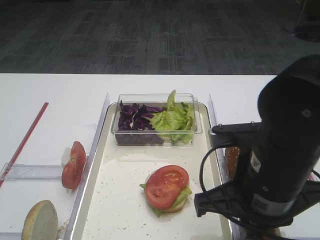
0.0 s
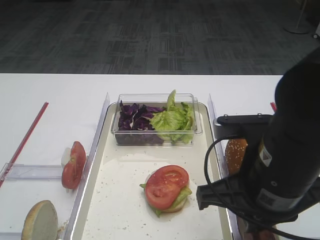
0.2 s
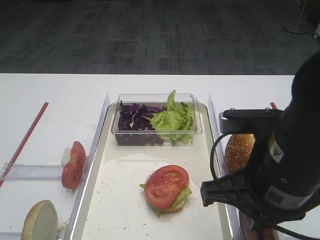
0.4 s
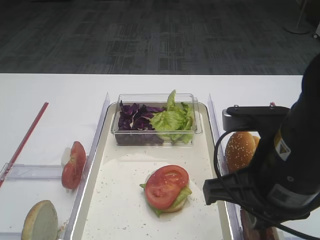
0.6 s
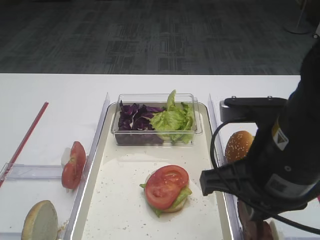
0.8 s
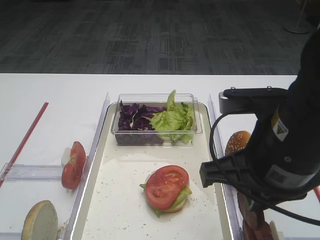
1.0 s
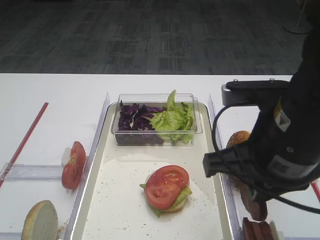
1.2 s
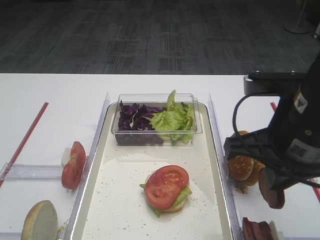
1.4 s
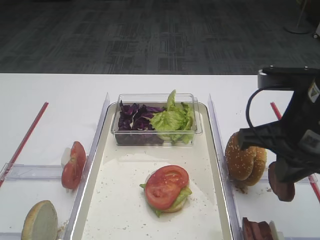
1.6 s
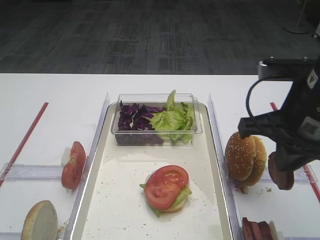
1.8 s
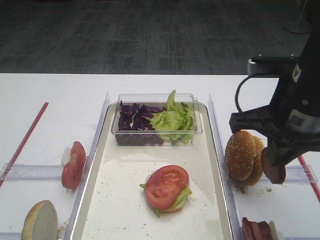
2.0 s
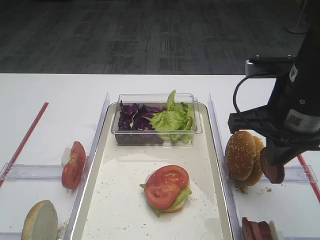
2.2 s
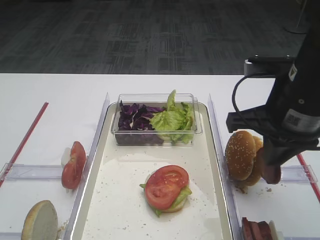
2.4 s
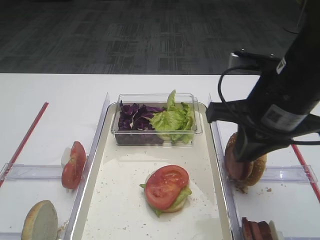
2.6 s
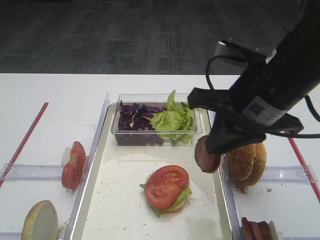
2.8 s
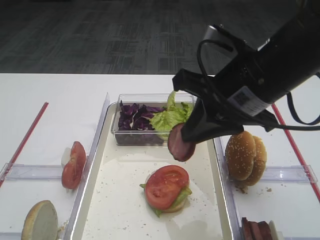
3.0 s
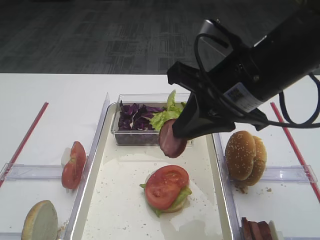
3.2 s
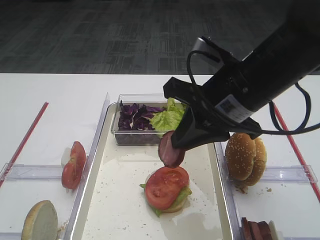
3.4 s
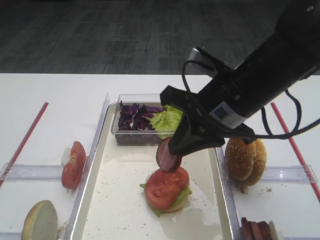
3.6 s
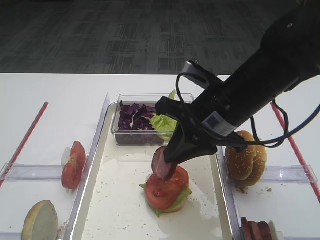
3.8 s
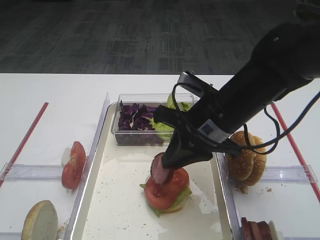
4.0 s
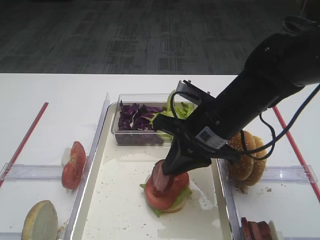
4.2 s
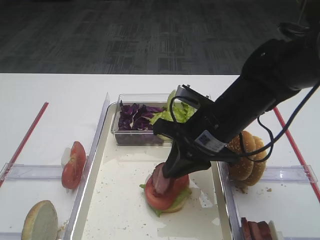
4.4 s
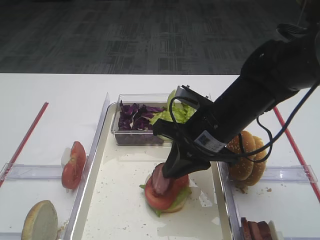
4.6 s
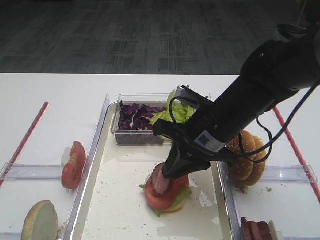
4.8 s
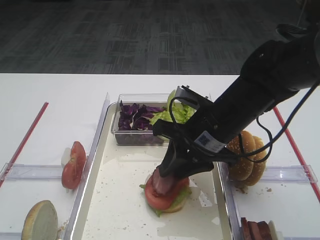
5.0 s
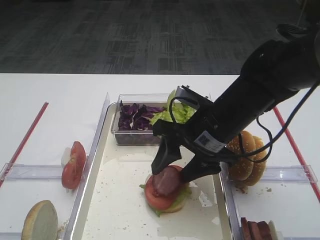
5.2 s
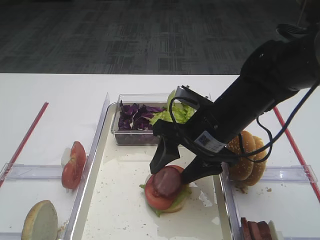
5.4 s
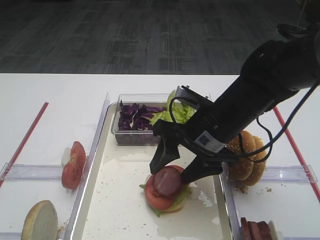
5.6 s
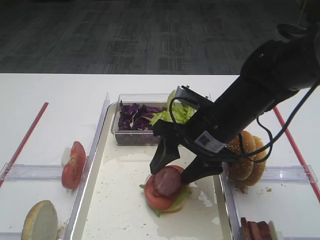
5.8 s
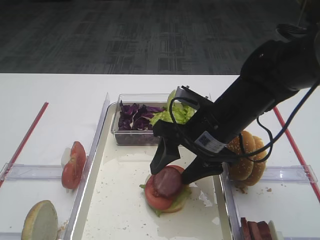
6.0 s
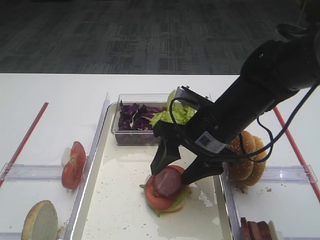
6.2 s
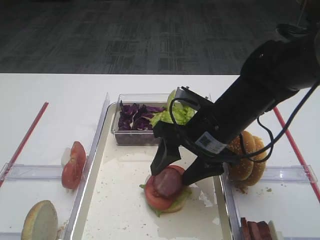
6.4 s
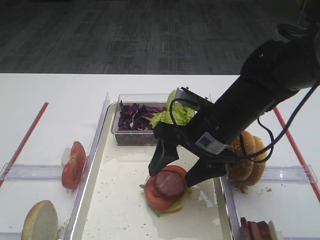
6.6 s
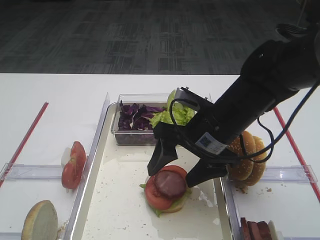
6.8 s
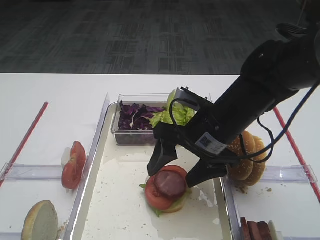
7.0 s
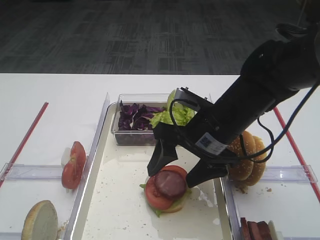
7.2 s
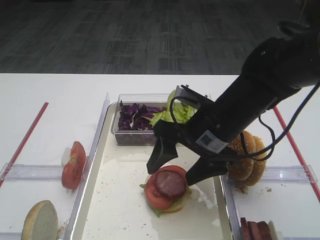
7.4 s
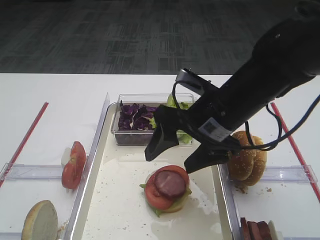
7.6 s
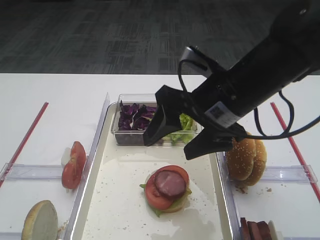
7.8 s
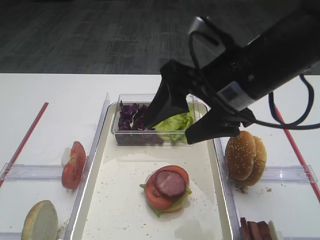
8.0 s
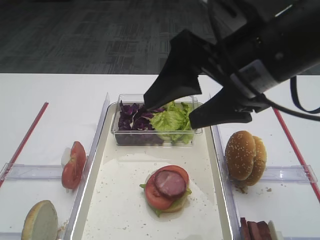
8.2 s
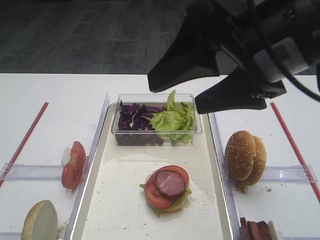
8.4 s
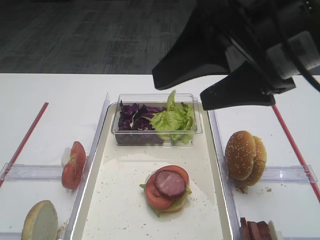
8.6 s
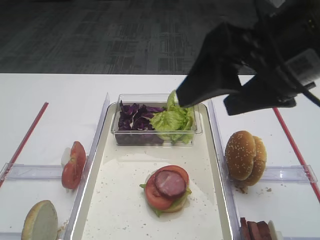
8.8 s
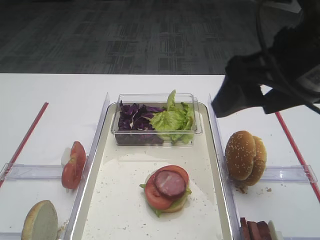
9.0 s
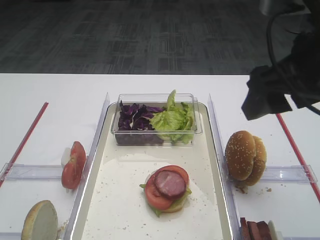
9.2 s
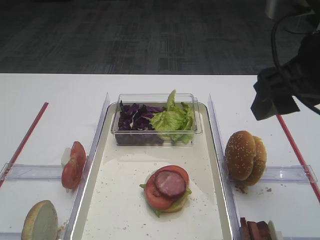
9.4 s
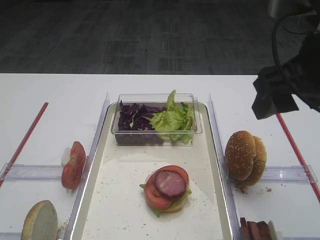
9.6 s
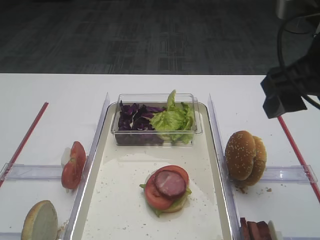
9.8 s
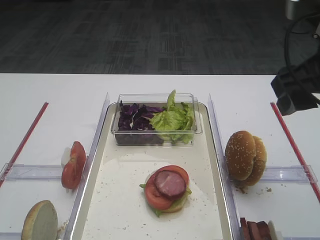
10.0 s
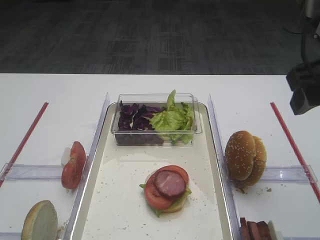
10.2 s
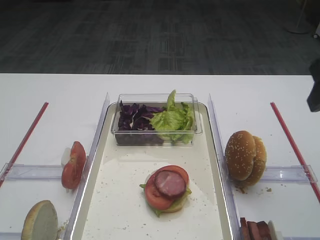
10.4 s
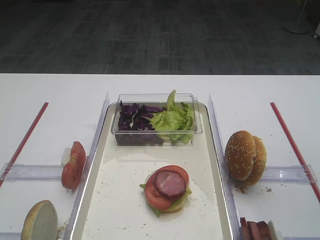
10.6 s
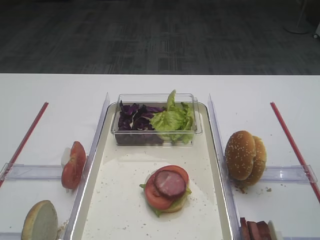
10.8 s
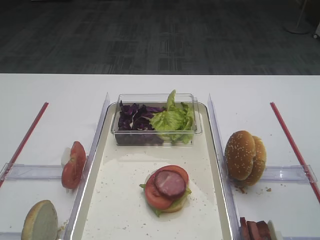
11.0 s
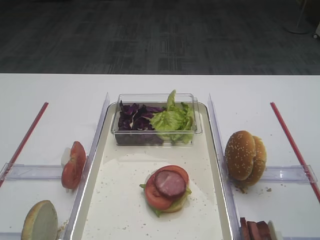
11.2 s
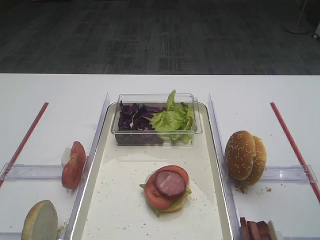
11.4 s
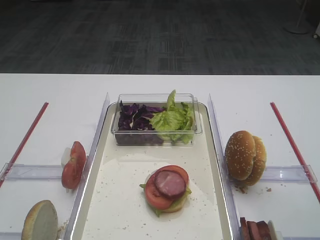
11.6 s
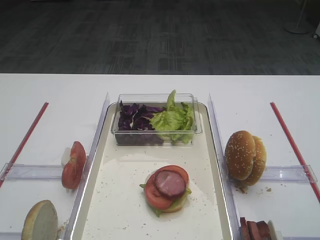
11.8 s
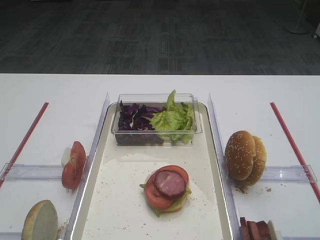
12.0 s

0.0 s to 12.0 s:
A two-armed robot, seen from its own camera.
Step, 1.0 to 7.6 s: Place the cutlet on the tomato slice with the right gripper.
0.0 to 1.6 s: The right gripper shifts about 10 cm upward and to the right.
1.6 to 3.0 s: The right gripper moves to the left, about 5 cm.
3.0 to 4.4 s: The right gripper goes about 10 cm downward.
4.4 to 6.0 s: The right gripper opens.
6.0 to 7.6 s: The grippers stay close to where they were, moving slightly.
7.6 to 9.0 s: The right gripper shifts roughly 15 cm upward, backward and to the right.
9.0 to 10.4 s: The right gripper is displaced to the right by approximately 10 cm.
10.4 to 12.0 s: The right gripper heads backward, covering approximately 15 cm.

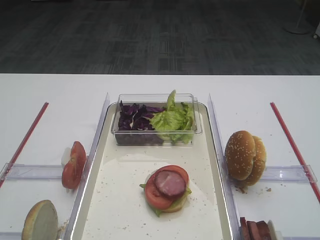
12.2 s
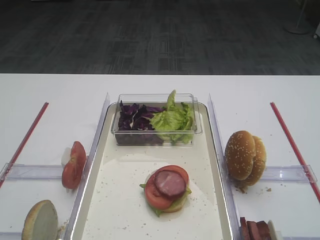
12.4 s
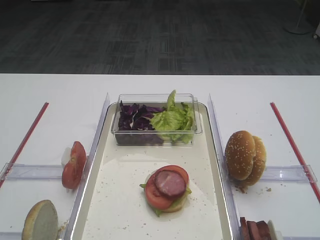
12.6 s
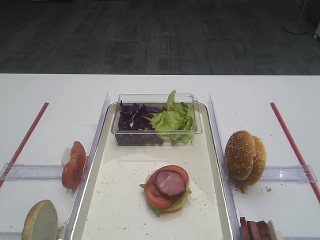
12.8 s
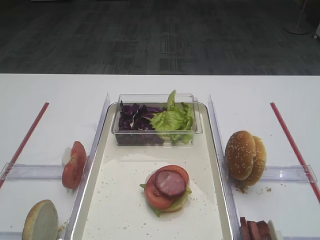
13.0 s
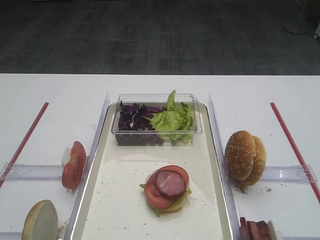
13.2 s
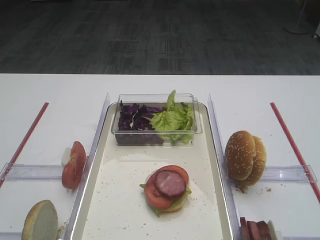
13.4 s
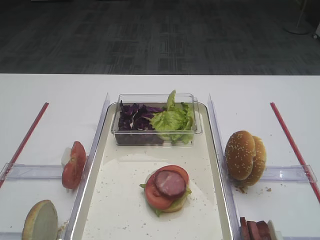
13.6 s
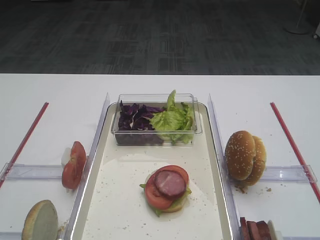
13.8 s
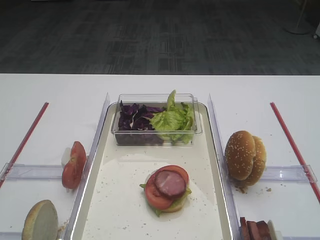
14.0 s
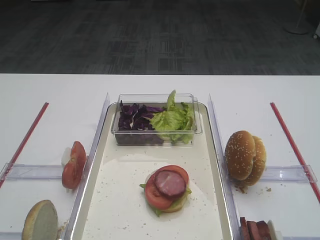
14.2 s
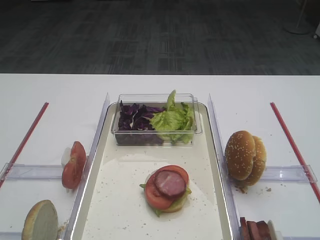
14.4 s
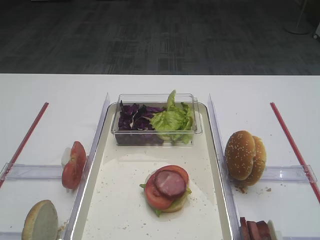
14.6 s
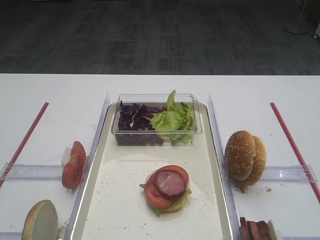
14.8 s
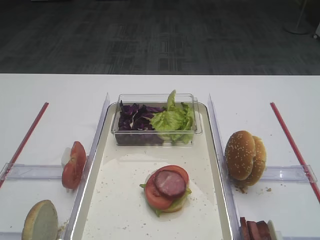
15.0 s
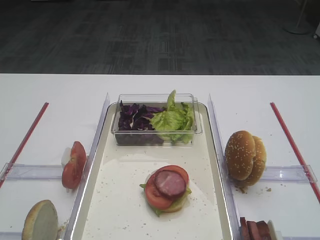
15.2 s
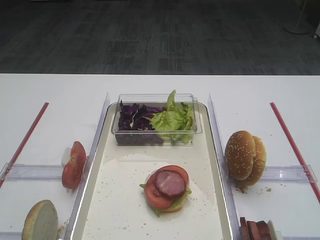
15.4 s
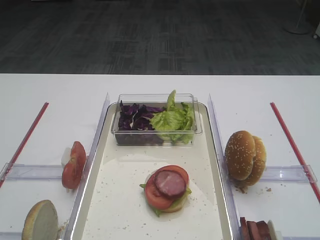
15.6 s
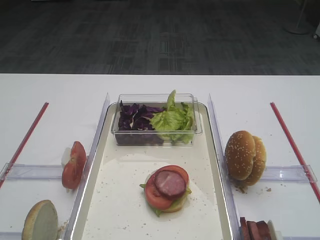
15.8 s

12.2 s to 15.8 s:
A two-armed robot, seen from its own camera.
14.0 to 15.8 s: Both grippers stay put.
